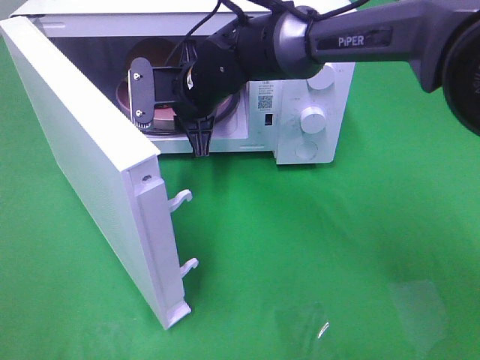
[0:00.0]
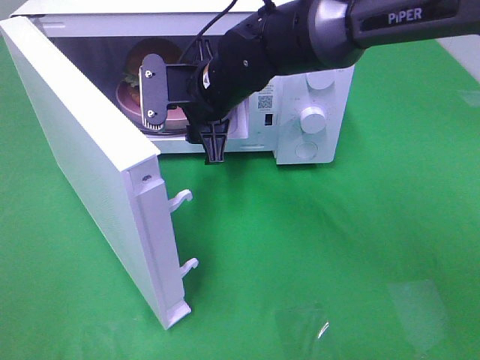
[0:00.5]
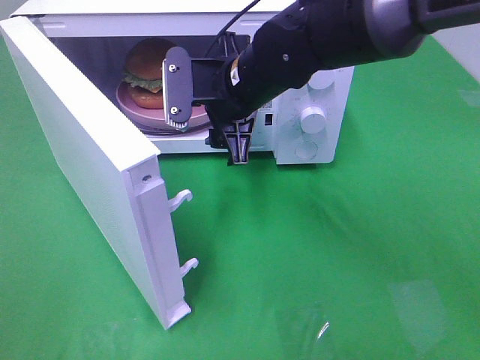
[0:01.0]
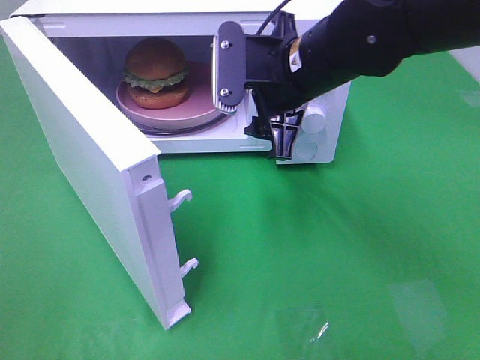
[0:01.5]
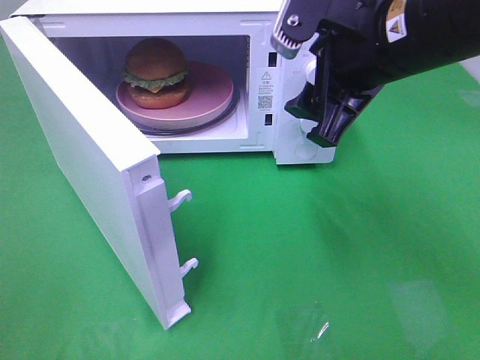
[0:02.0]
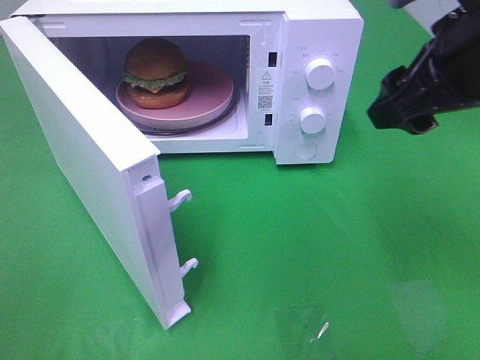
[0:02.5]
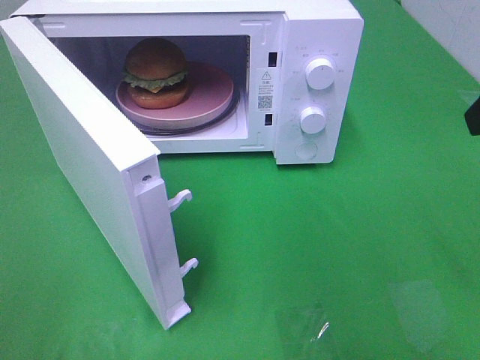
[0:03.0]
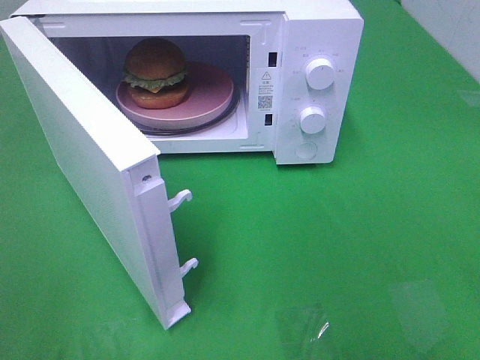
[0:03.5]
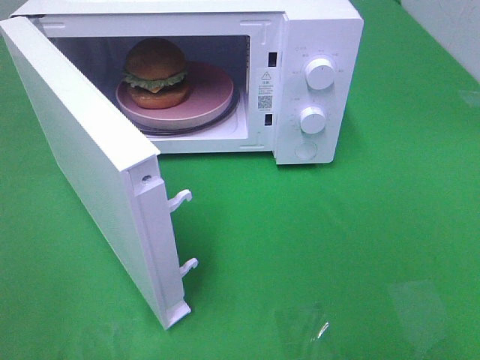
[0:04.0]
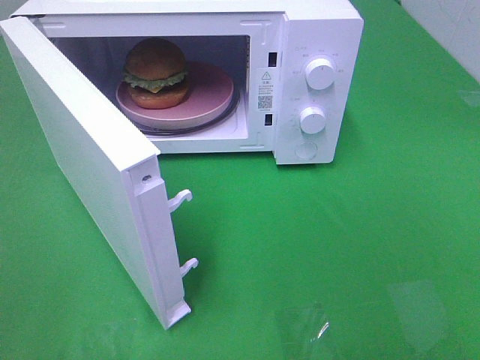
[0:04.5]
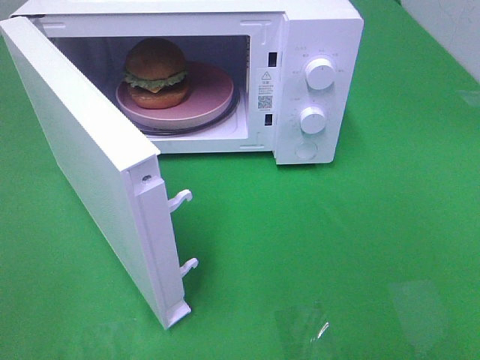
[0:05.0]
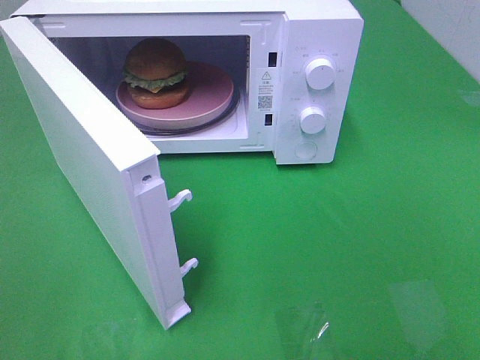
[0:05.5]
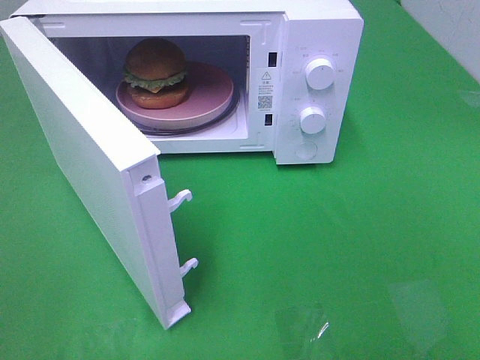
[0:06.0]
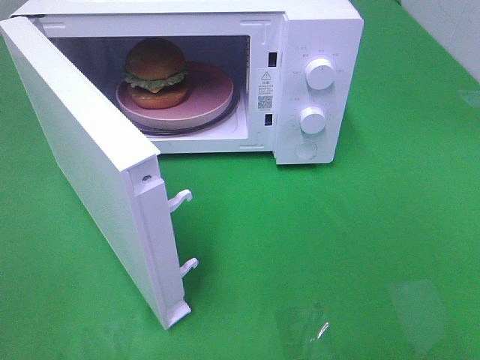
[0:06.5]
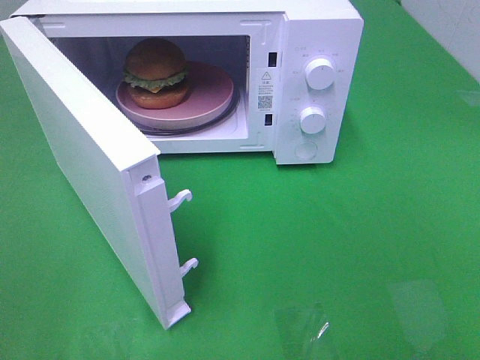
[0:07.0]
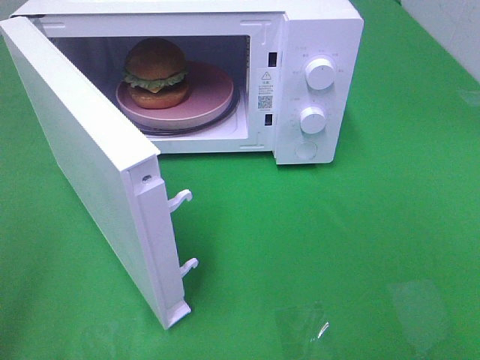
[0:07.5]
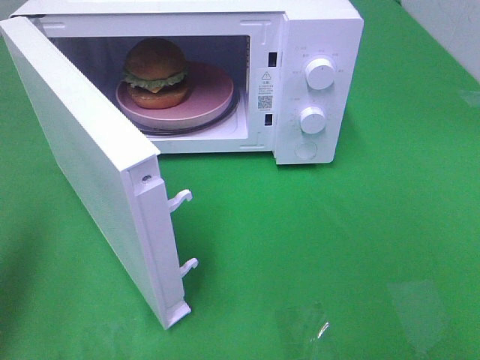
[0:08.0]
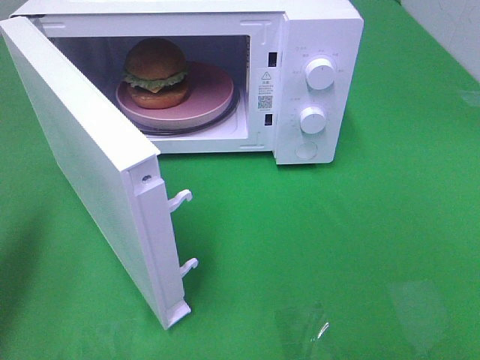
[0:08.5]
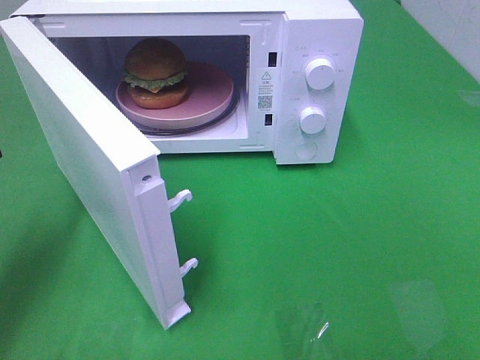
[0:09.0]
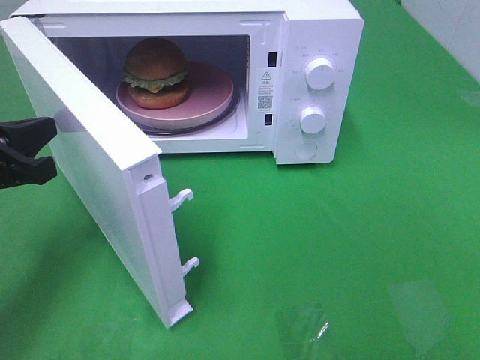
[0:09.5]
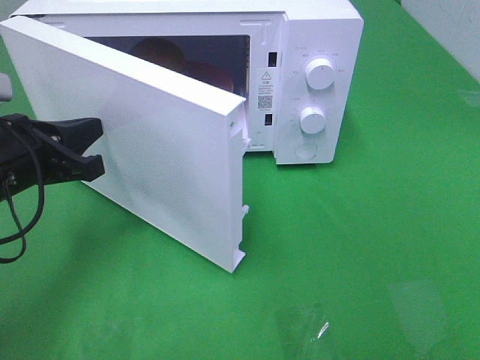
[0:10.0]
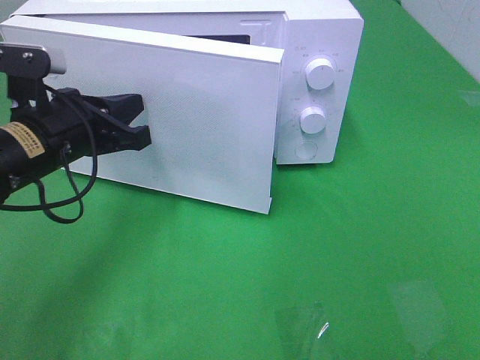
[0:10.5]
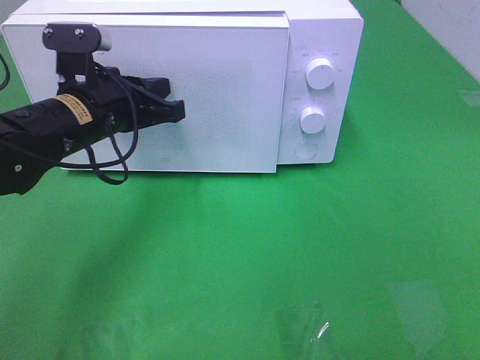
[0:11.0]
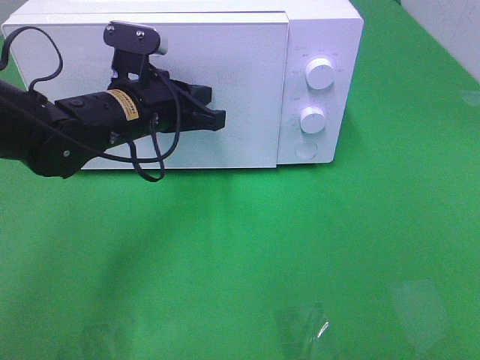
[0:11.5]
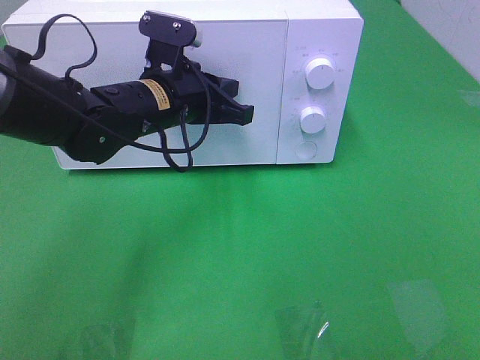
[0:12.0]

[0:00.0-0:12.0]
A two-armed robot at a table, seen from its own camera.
Task of the whole recording: Heat the burger.
0:00.0 to 0:02.0: The right gripper heads to the right, backward and upward, covering approximately 25 cm.
0:02.0 to 0:04.0: The right gripper shifts approximately 25 cm backward and to the right.
0:06.0 to 0:08.0: The left gripper goes about 15 cm forward, and closes its fingers.
0:08.0 to 0:10.0: The left gripper heads downward, to the right and forward, covering about 20 cm.
0:10.0 to 0:12.0: The left gripper is displaced to the right and forward by roughly 20 cm.

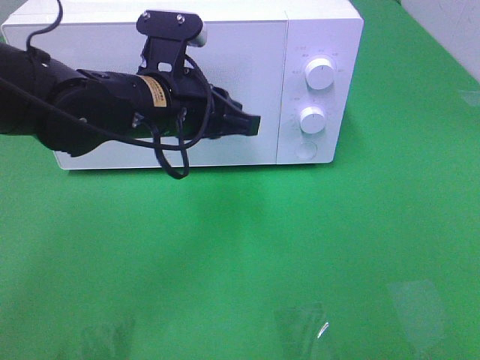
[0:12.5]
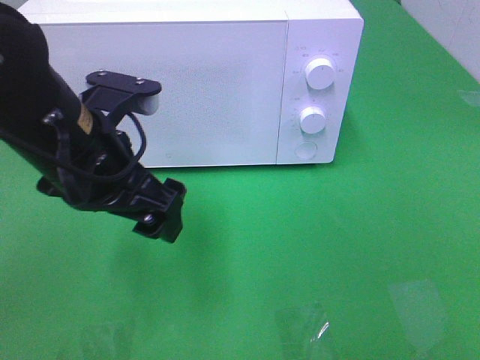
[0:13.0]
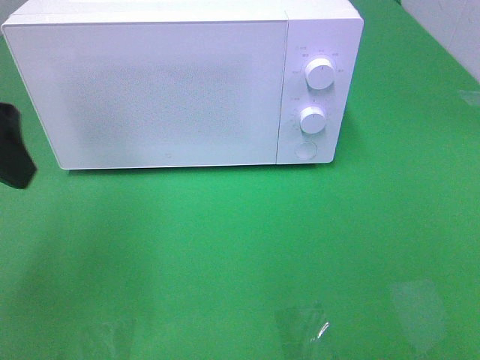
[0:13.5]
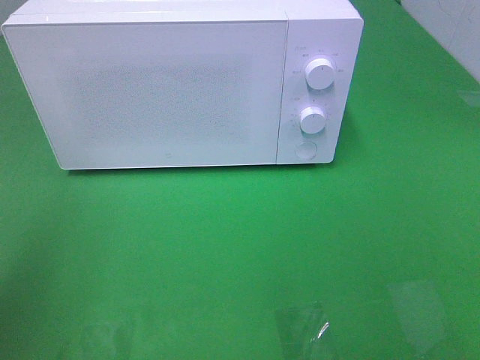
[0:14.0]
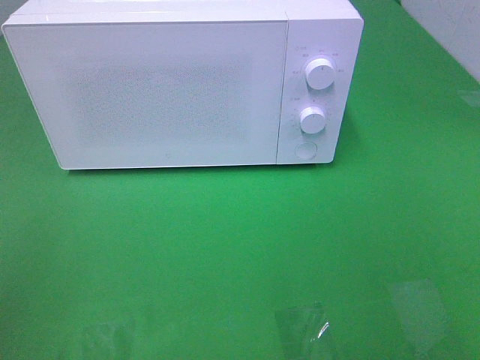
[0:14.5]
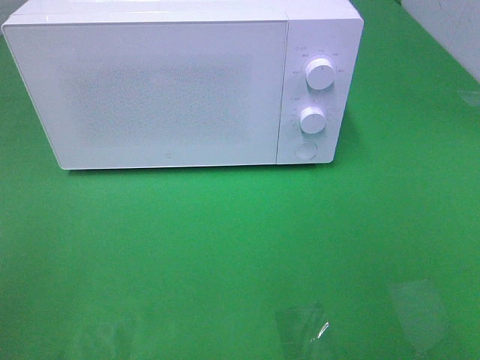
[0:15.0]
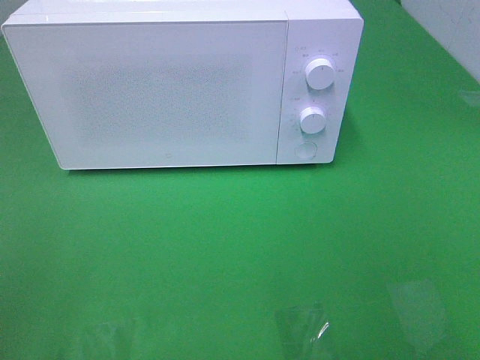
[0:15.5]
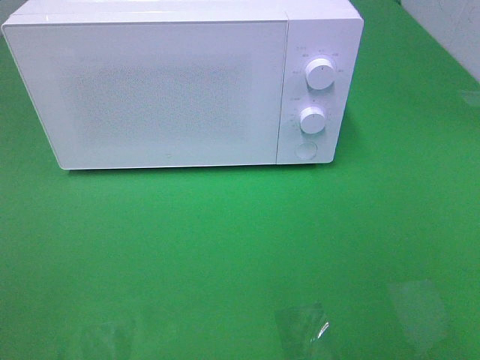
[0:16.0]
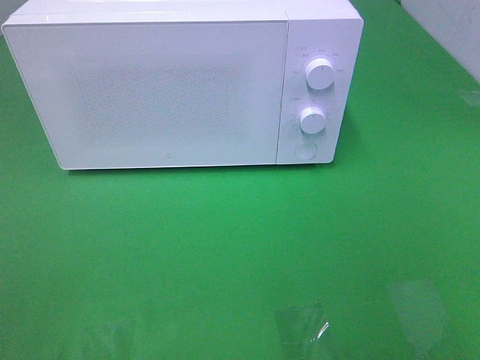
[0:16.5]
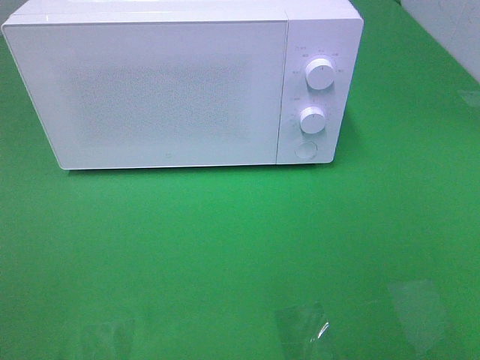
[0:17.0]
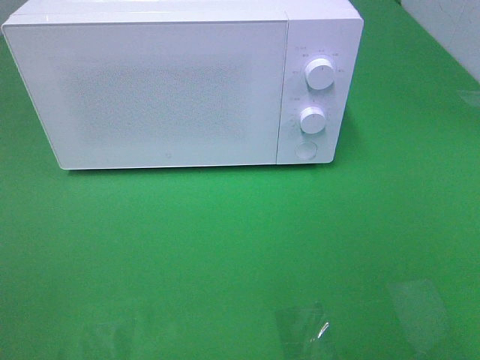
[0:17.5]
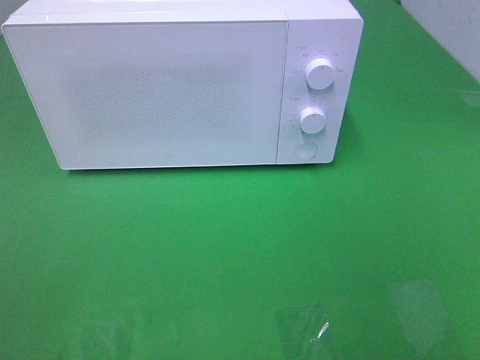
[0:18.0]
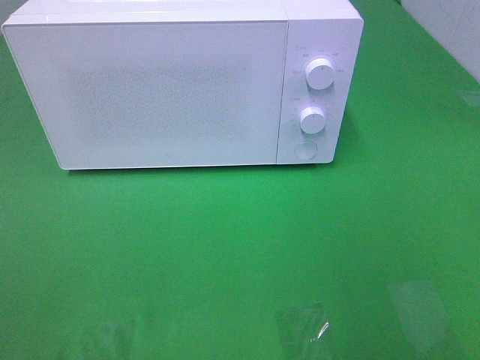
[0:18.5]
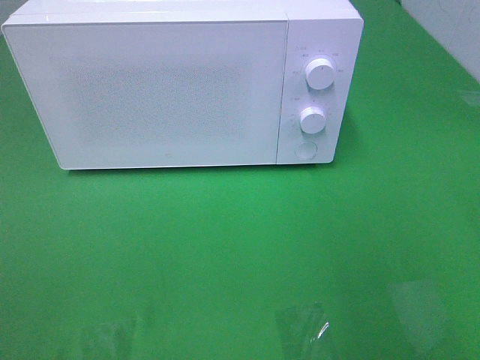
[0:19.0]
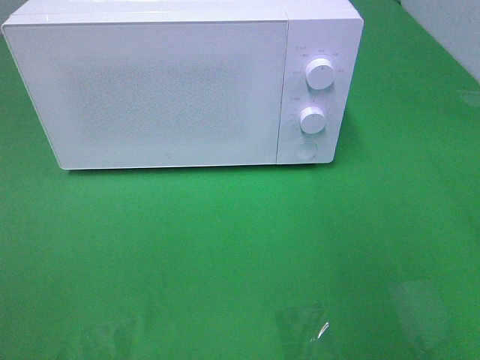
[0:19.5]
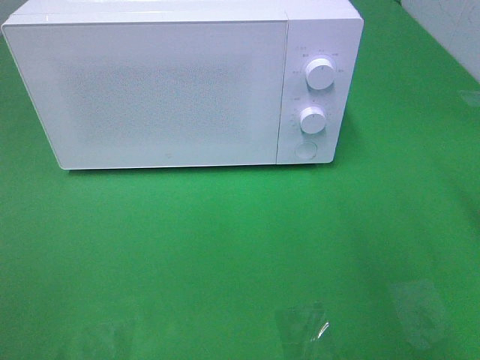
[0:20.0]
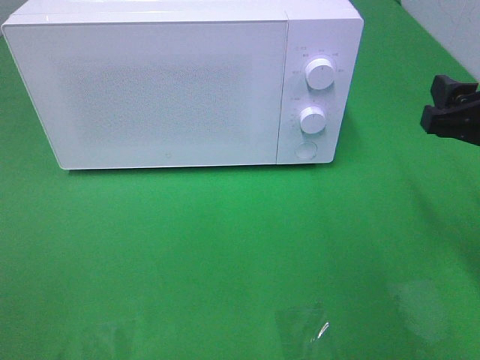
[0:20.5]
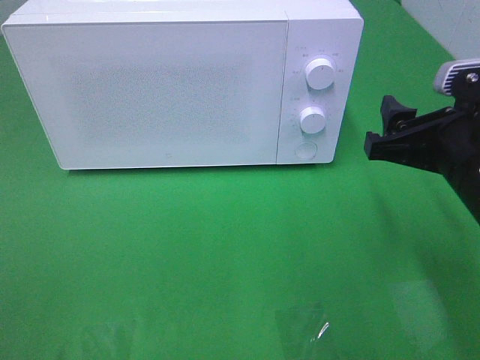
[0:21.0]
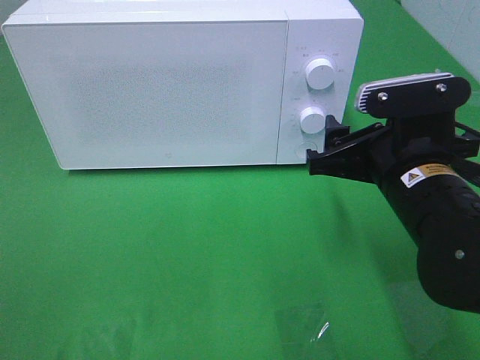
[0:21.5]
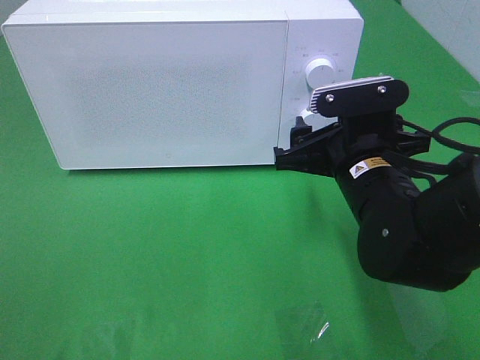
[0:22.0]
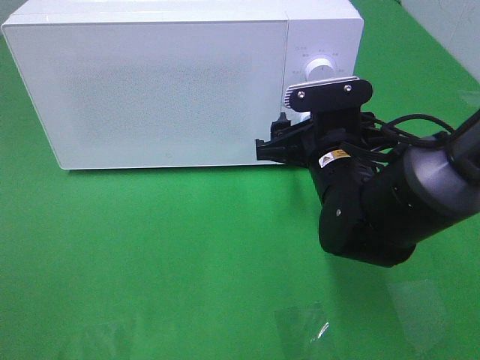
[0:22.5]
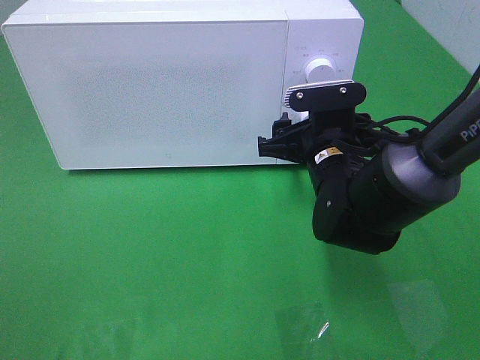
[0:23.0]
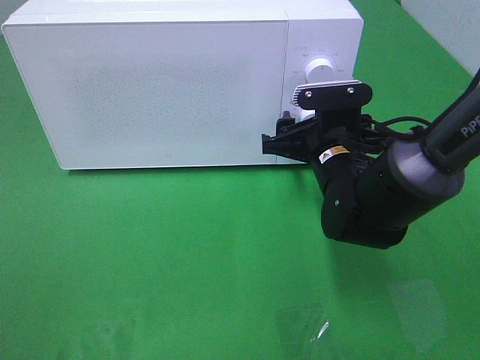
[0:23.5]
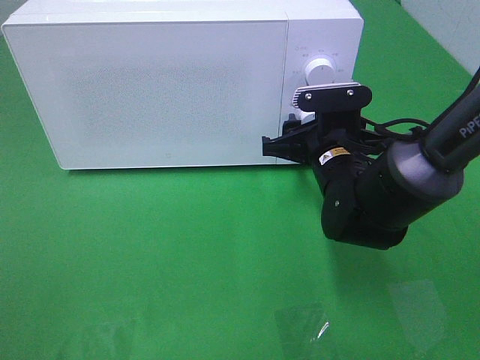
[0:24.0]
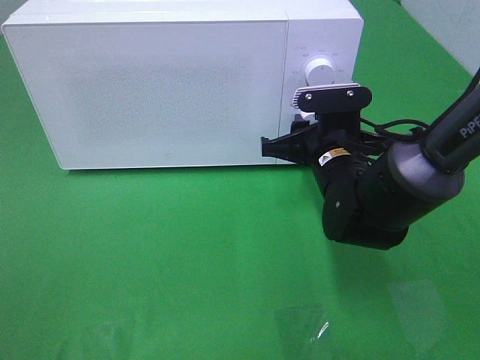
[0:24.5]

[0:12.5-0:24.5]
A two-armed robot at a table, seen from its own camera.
Task of the whole recording: Heat the burger.
0:12.5 to 0:14.5: The left gripper is displaced backward, to the left and upward by roughly 35 cm, and opens up.
0:18.5 to 0:20.5: The right gripper shifts some 15 cm forward and downward.
0:20.5 to 0:22.5: The right gripper is displaced to the left, downward and forward by roughly 20 cm.
0:22.5 to 0:24.5: The right gripper closes its fingers.

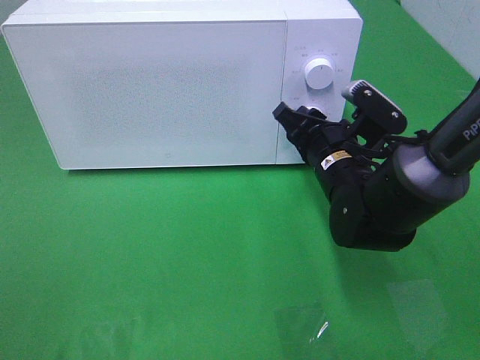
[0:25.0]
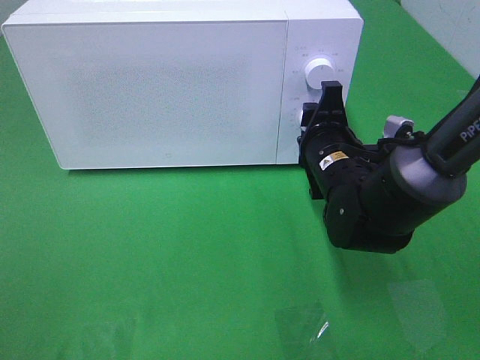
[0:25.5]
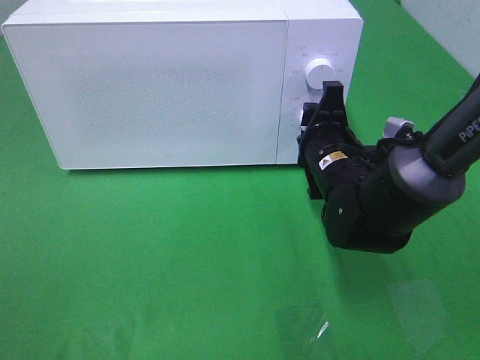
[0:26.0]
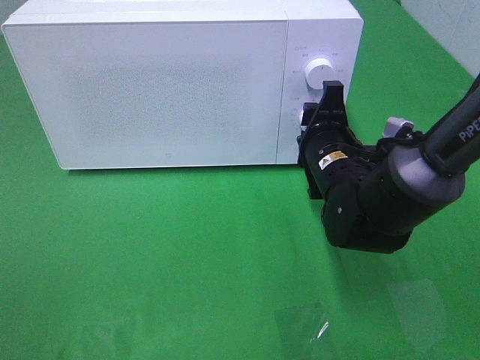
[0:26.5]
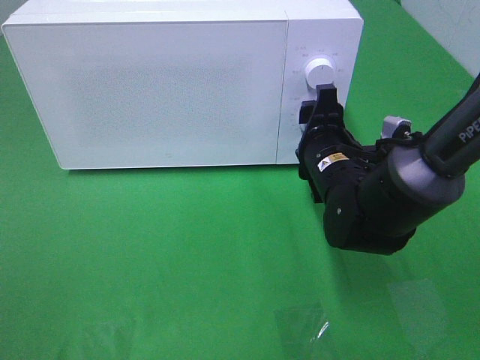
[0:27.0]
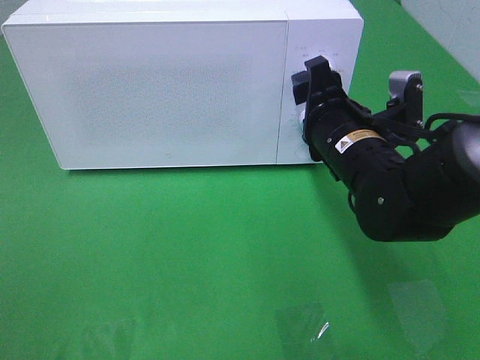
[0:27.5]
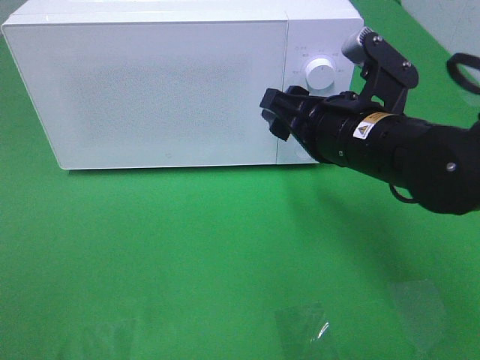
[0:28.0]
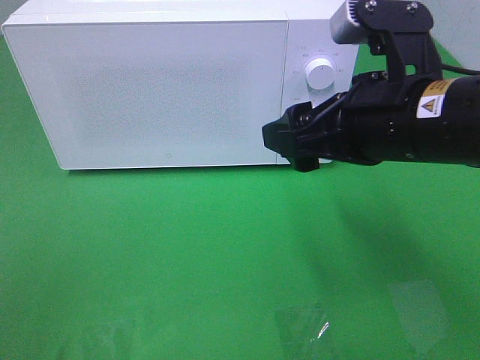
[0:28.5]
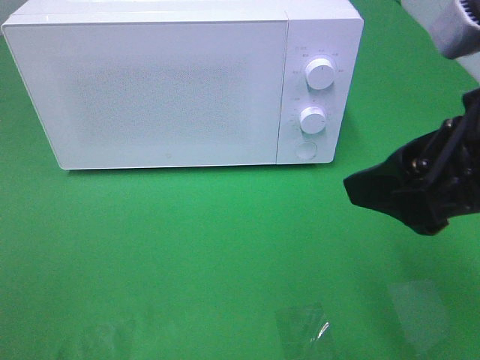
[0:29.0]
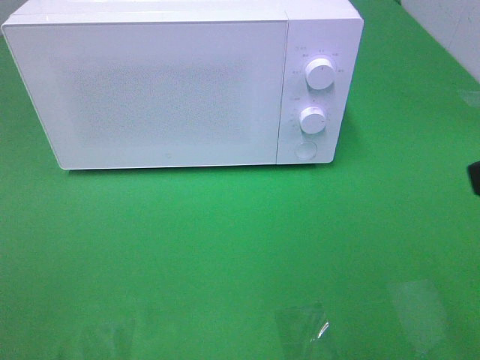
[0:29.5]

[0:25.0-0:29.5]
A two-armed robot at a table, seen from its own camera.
Task of the whole recording: Heat the burger.
0:27.0 to 0:29.5: The right gripper is displaced backward, upward and to the right by about 35 cm.
